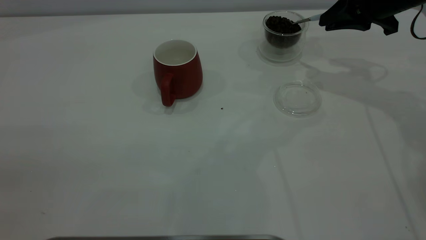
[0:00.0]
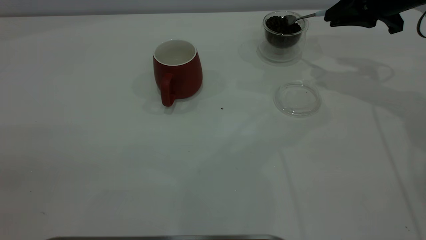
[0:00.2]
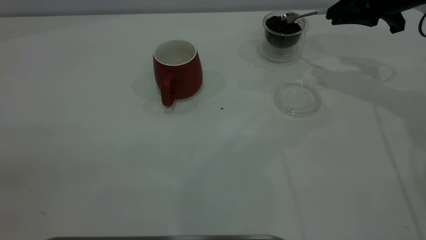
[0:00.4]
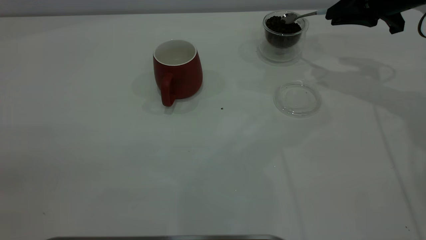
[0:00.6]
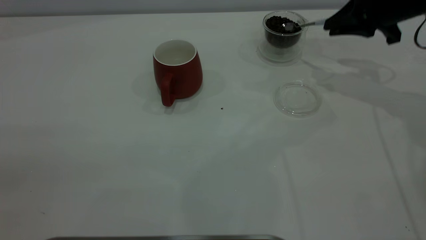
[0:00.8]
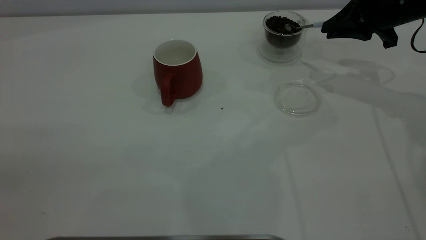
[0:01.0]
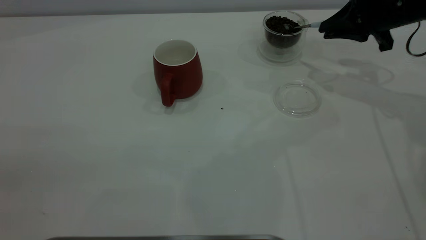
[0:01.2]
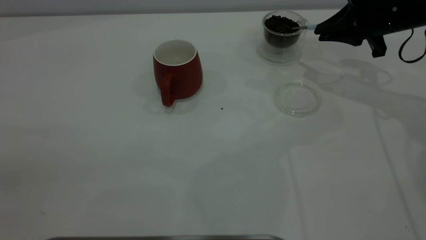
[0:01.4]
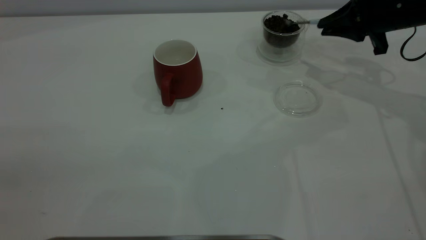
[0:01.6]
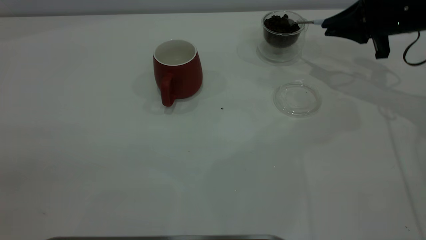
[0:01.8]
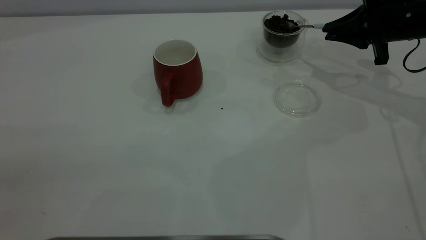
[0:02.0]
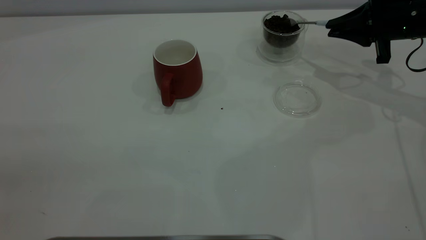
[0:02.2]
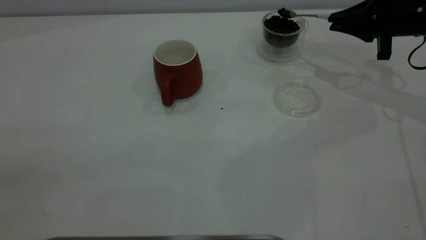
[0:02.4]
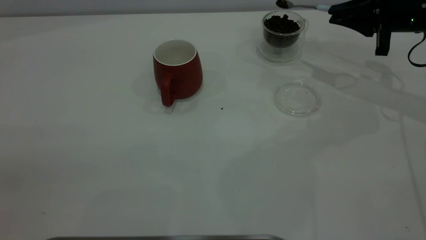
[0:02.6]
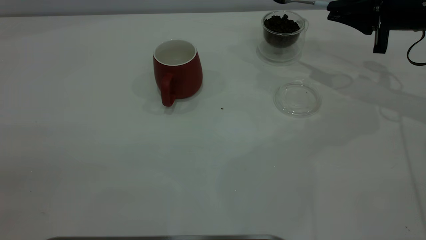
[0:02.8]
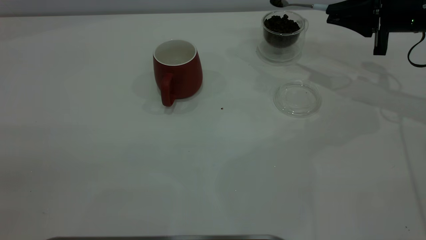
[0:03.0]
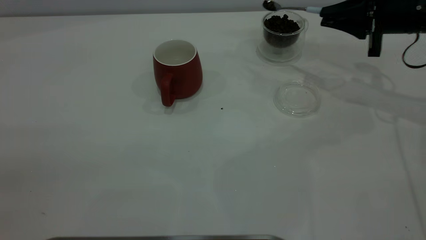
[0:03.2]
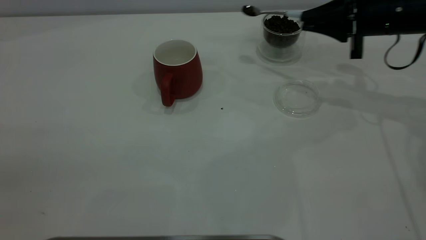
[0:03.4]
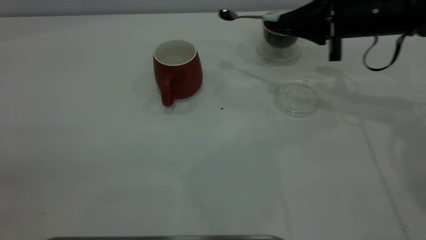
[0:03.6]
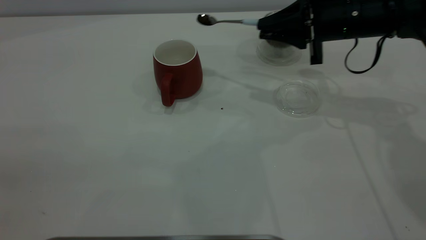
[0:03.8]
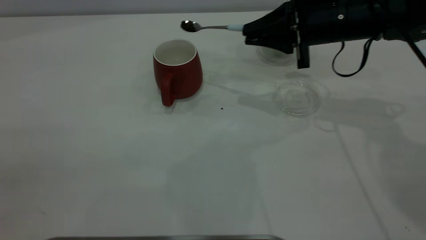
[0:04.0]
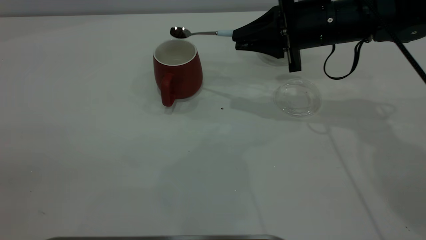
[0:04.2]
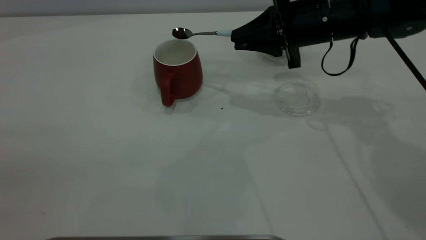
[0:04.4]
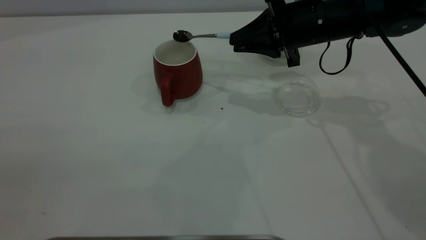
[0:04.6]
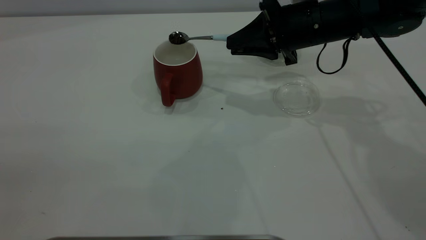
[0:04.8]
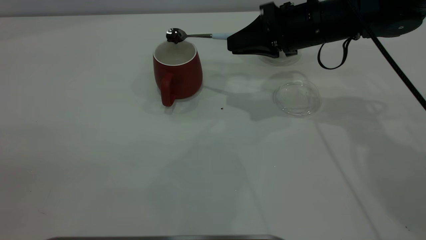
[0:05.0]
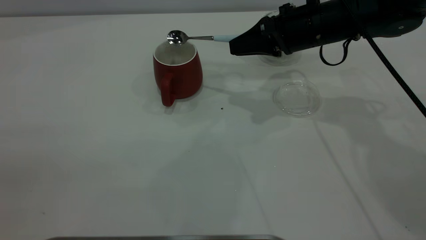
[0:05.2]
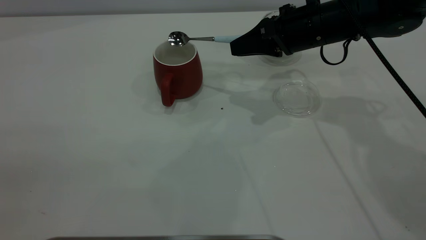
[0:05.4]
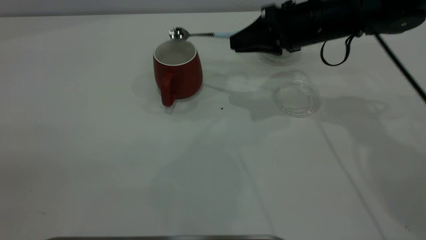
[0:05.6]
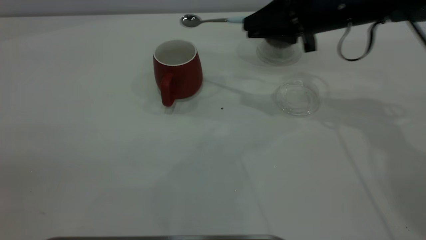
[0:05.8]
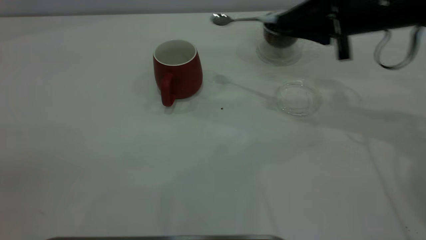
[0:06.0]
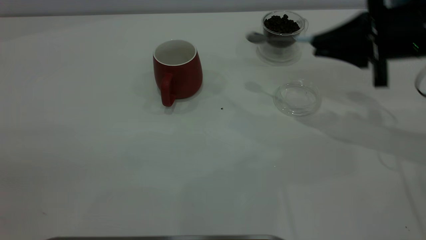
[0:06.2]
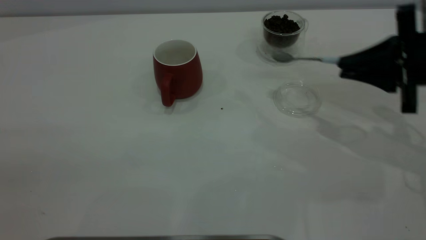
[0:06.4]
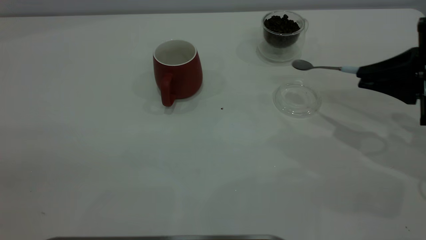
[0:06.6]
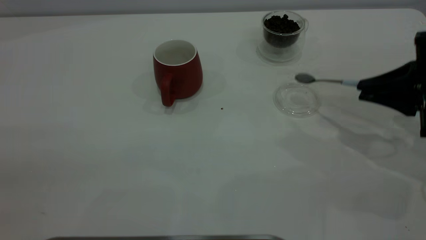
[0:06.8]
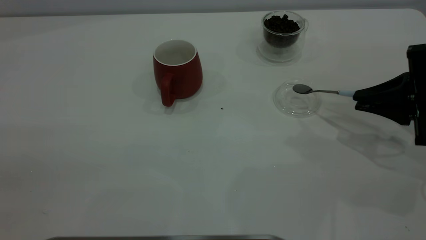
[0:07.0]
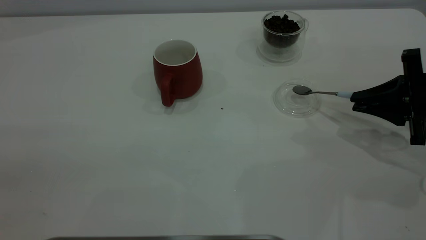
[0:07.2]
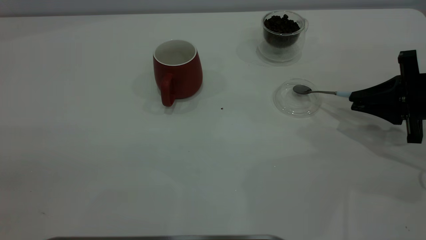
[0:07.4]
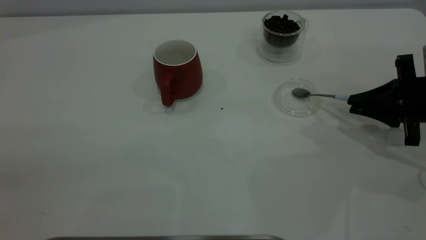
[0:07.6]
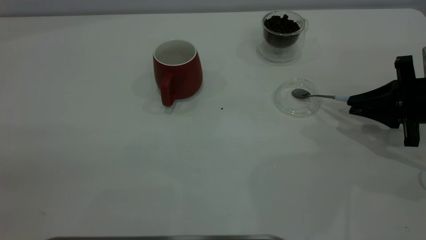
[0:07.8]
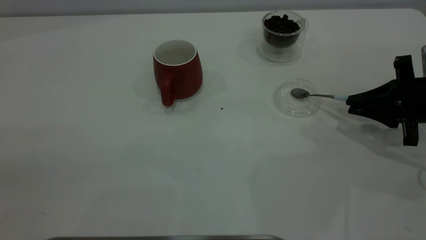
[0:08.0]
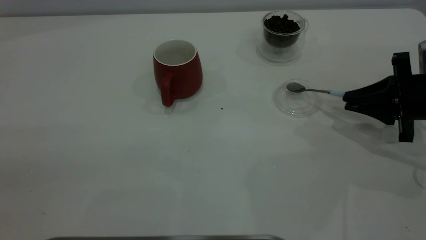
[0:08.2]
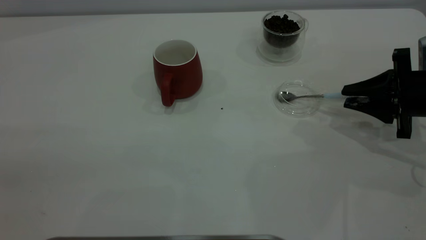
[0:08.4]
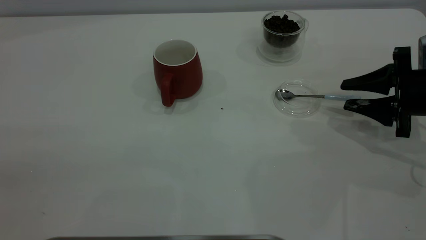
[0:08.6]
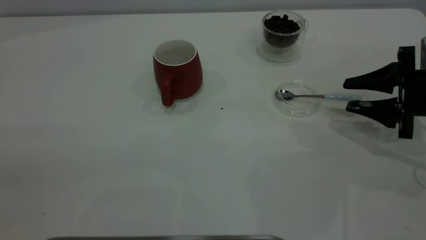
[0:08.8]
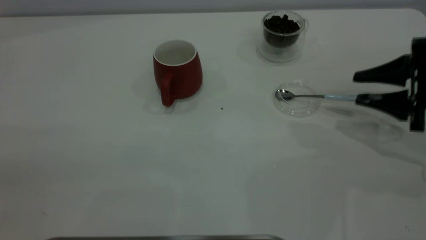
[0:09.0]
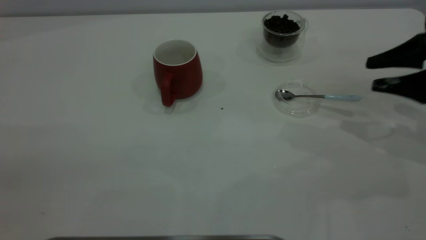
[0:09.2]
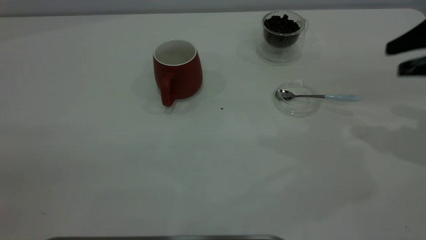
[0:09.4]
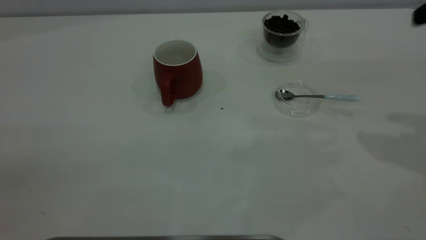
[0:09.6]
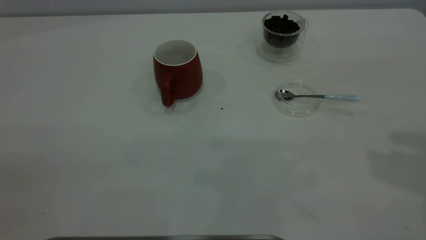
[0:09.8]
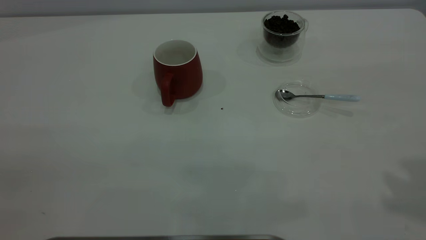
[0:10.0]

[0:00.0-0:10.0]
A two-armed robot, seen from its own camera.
Task of the whole recording: the left gripper place the red cup in the center of the table, the right gripper take the blue spoon from the cup lid and scoop out the coffee beans from the coffee cup and put them into the red cup, the right gripper put the spoon back into the cup lid.
Step, 0:00.0 to 0:05.6: Scoop a spoonful of beans into the cup.
Step, 0:05.8 to 0:09.0: Place the spoon back in its original place.
0:00.0 to 0:01.4: There are only small adjustments of the grippers.
0:02.8 to 0:04.2: The right gripper heads to the left, covering approximately 15 cm.
0:05.8 to 0:07.2: The right gripper heads to the right, backward and downward, covering roughly 20 cm.
0:07.2 to 0:08.6: The right gripper opens up.
0:08.6 to 0:10.0: The right gripper heads upward and backward, covering approximately 35 cm.
